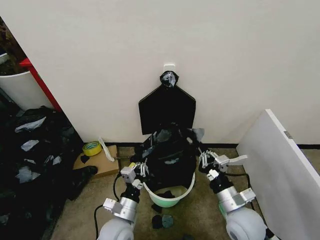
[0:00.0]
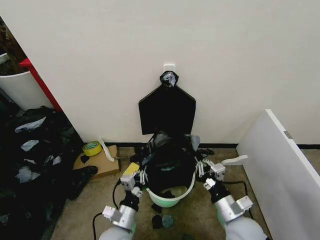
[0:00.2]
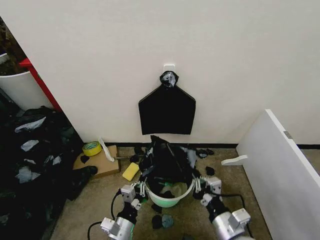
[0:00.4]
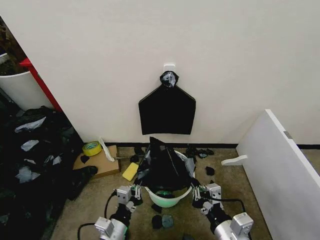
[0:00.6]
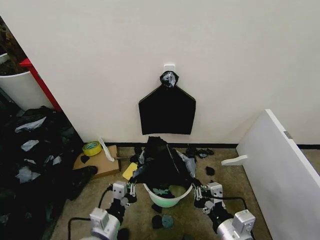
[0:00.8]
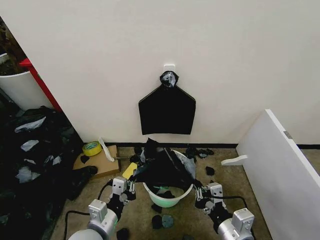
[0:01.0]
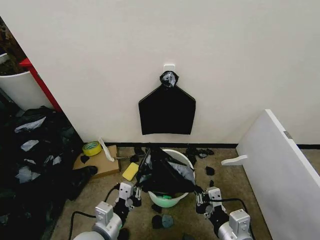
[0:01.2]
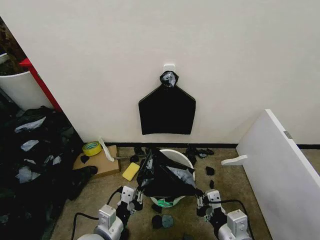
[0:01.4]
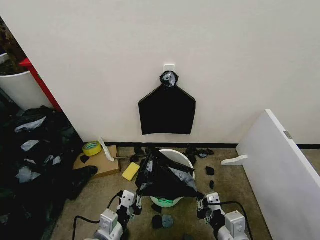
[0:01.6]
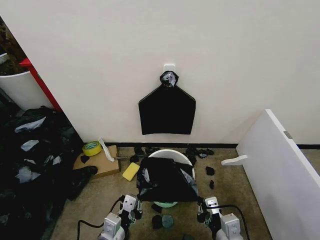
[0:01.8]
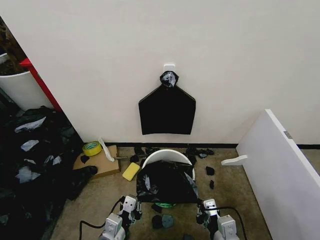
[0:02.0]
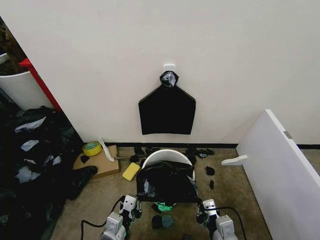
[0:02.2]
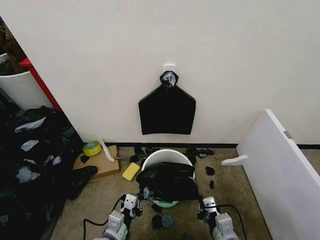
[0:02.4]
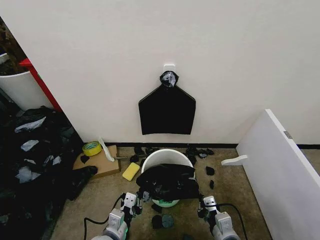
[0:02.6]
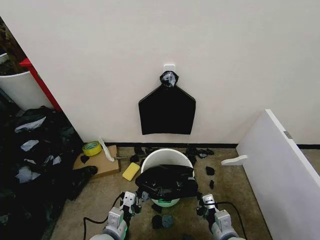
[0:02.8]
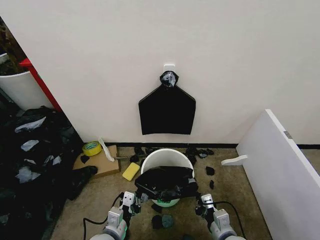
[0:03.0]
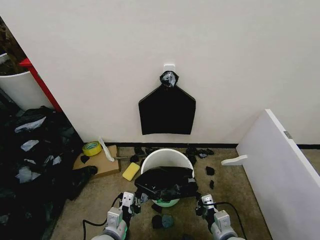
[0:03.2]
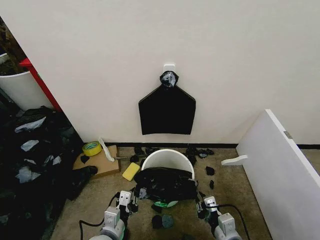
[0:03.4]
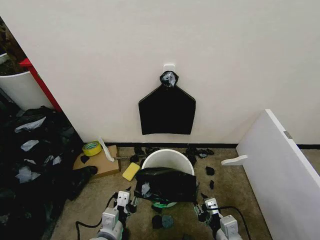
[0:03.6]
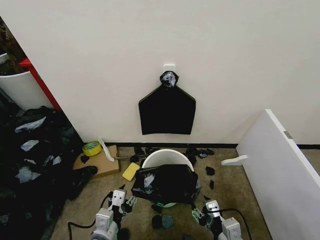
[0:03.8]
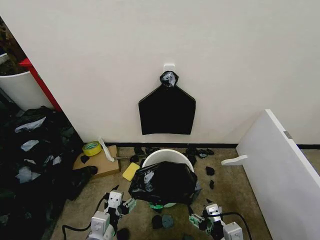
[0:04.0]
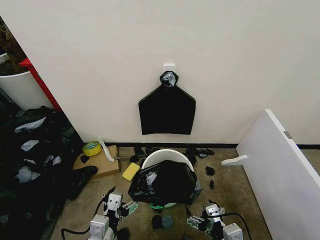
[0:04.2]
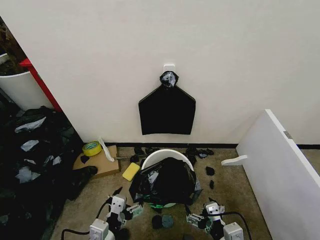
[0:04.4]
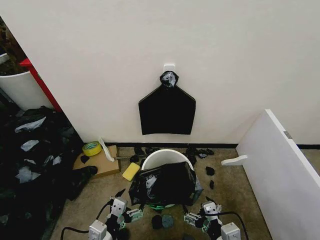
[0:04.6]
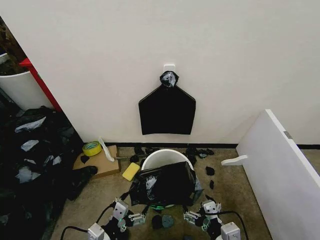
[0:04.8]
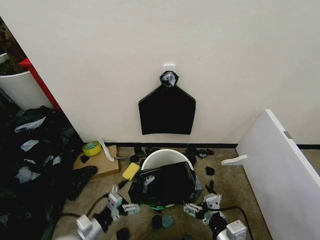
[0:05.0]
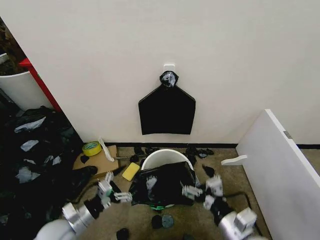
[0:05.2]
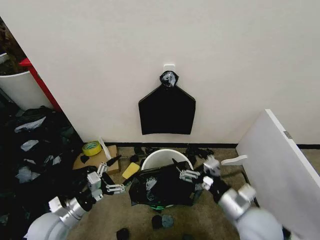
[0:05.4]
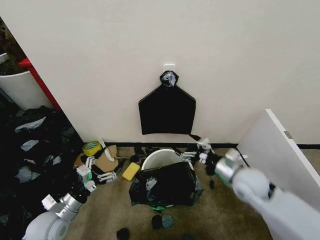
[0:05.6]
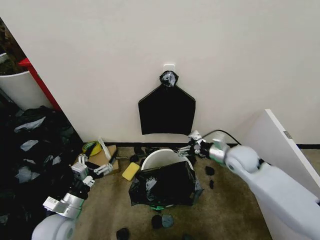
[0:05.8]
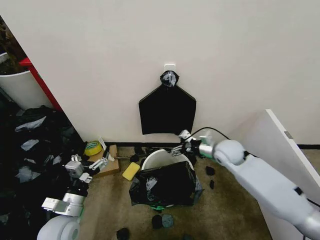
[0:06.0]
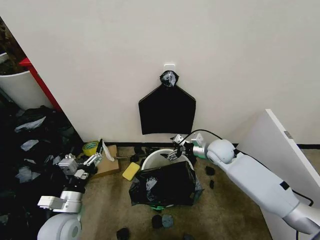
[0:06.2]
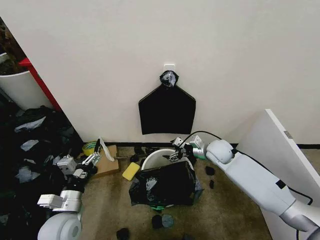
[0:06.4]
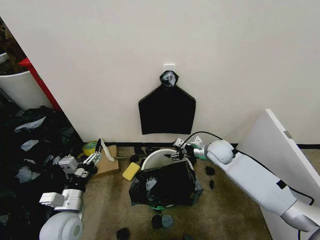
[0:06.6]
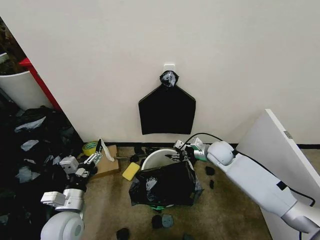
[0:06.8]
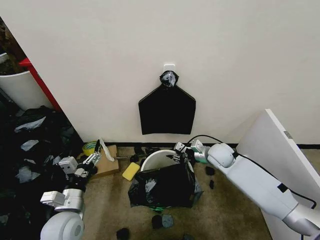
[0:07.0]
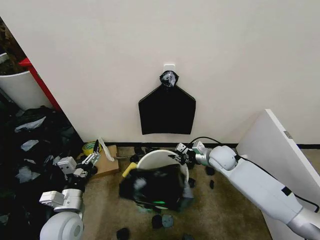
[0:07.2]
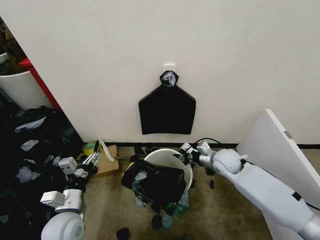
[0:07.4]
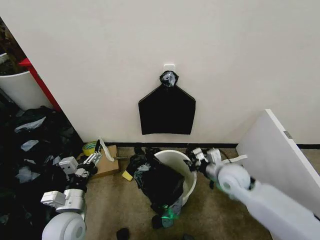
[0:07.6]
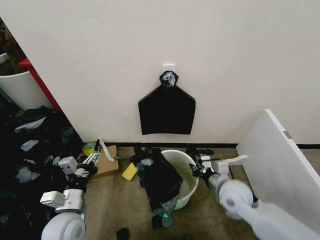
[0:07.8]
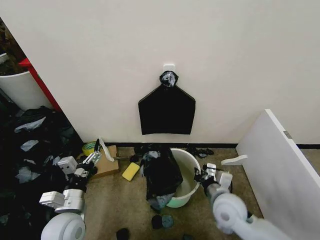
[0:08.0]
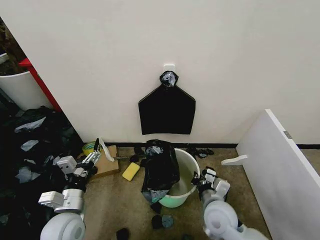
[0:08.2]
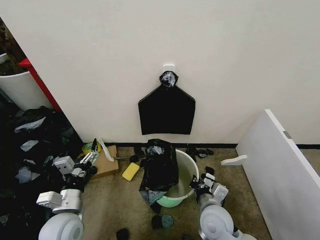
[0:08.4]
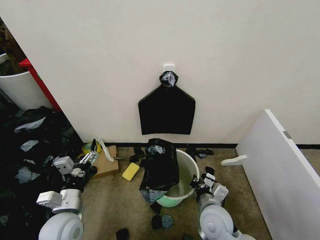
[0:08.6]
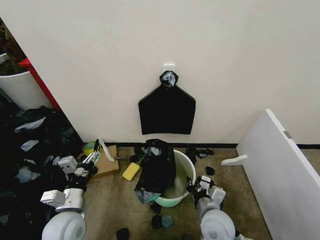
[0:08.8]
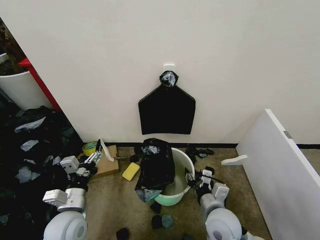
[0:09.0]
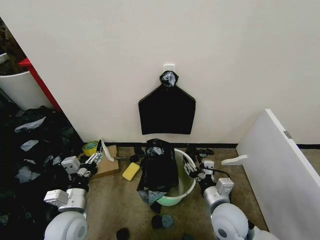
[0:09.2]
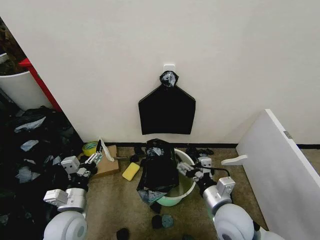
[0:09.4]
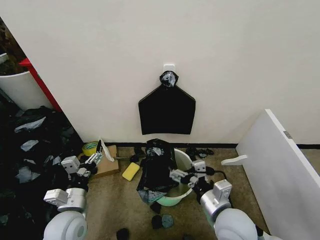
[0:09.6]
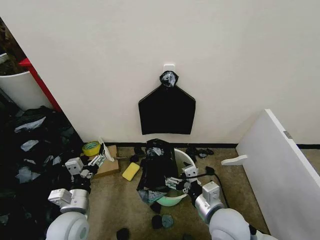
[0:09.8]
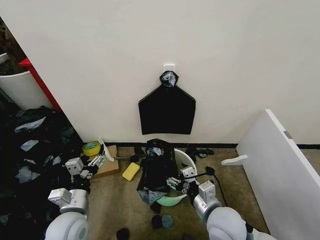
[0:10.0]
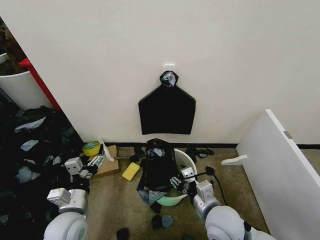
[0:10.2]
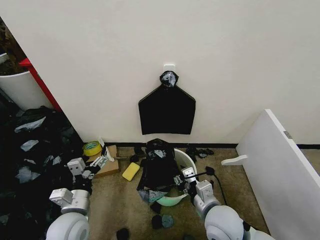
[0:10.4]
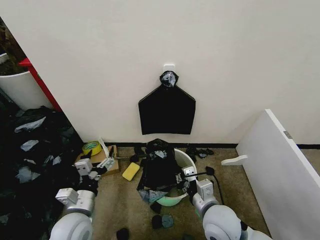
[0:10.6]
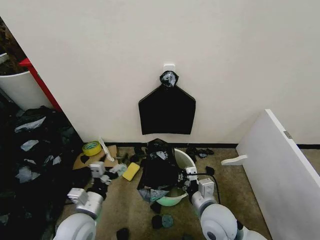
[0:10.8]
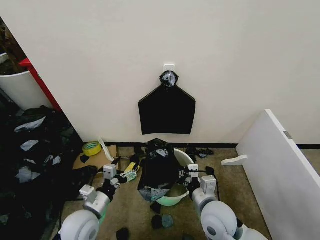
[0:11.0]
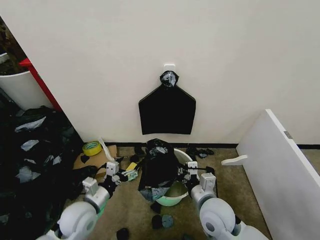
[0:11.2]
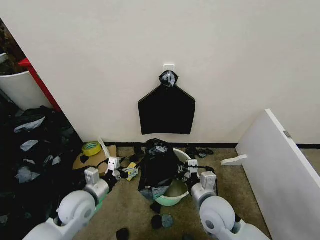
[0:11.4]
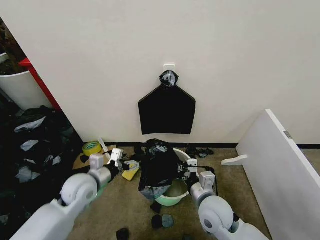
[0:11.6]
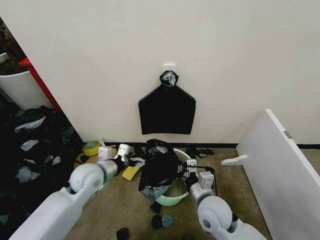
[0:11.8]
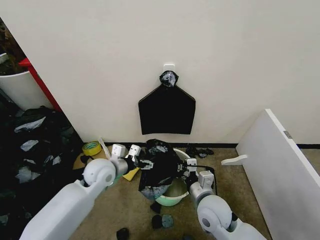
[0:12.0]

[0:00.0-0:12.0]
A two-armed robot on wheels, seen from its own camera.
Task of the whole recording: Place the garbage bag over the trash bin.
0:00.0 to 0:01.6: The left gripper goes about 10 cm backward and upward. The right gripper goes some 10 cm backward.
0:01.6 to 0:03.0: The right gripper heads downward, covering approximately 10 cm. Meanwhile the left gripper goes roughly 5 cm downward.
0:03.0 to 0:04.4: The left gripper moves upward, about 5 cm, and opens. The right gripper moves upward and backward, approximately 10 cm, and opens its fingers.
0:04.4 to 0:06.0: The left gripper is displaced to the left and forward by roughly 15 cm; the right gripper travels forward by roughly 35 cm.
0:06.0 to 0:07.6: The right gripper goes roughly 10 cm backward, and closes its fingers.
0:07.6 to 0:09.0: The right gripper is displaced backward and to the left by some 15 cm, and opens its fingers.
0:09.0 to 0:10.4: The right gripper opens, then closes once more.
0:10.4 to 0:12.0: The left gripper heads forward, covering some 15 cm. Meanwhile the right gripper closes.

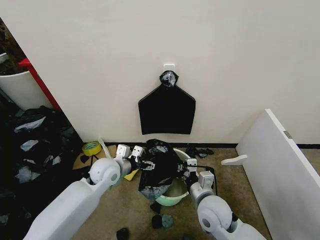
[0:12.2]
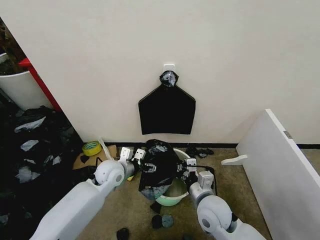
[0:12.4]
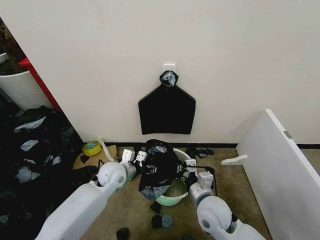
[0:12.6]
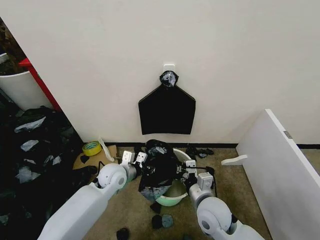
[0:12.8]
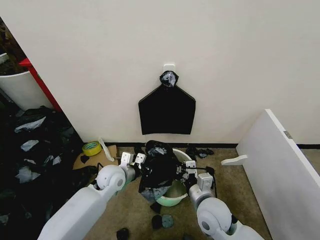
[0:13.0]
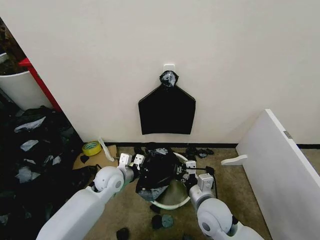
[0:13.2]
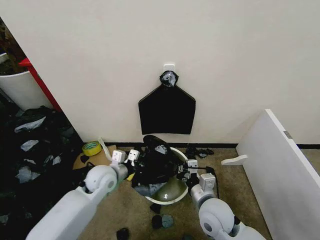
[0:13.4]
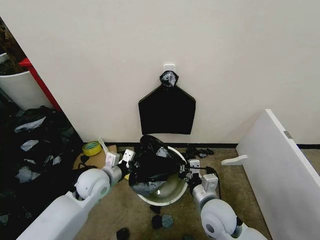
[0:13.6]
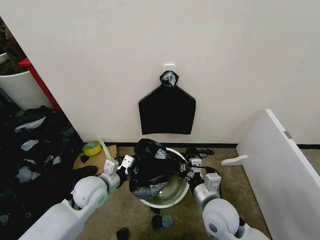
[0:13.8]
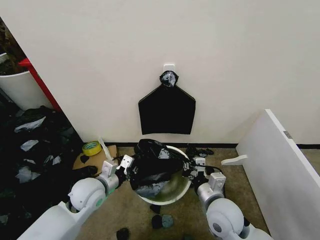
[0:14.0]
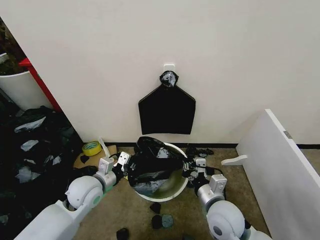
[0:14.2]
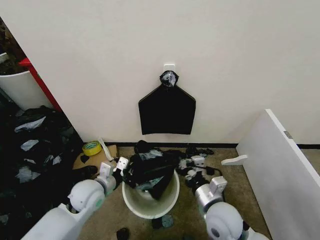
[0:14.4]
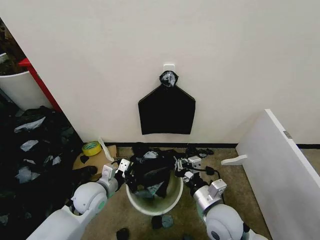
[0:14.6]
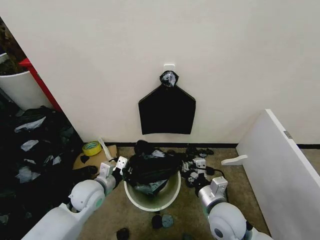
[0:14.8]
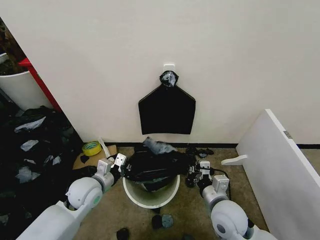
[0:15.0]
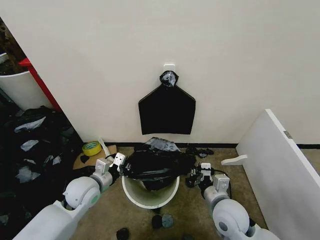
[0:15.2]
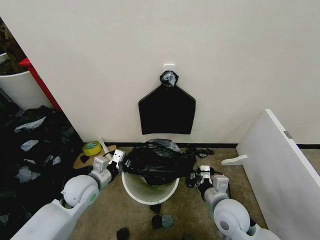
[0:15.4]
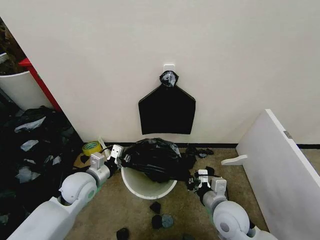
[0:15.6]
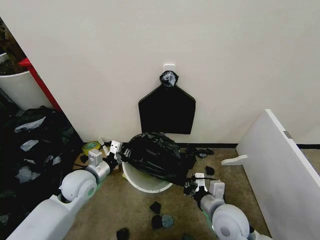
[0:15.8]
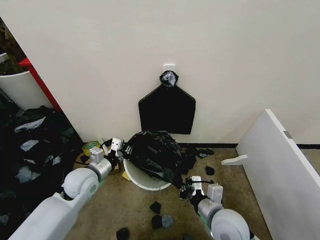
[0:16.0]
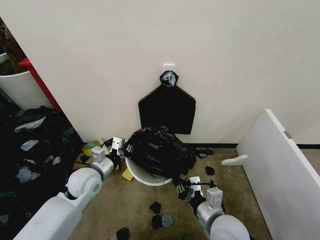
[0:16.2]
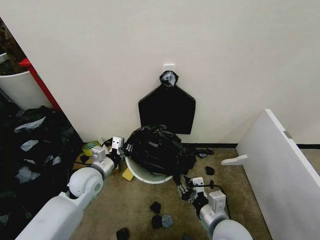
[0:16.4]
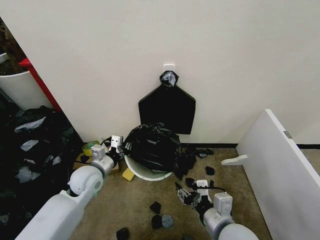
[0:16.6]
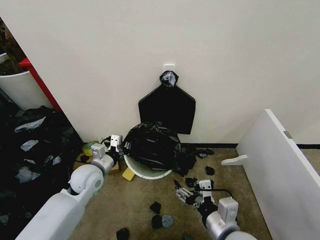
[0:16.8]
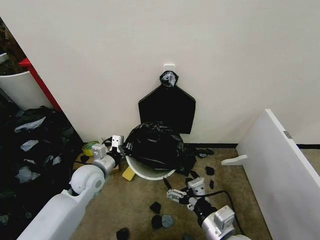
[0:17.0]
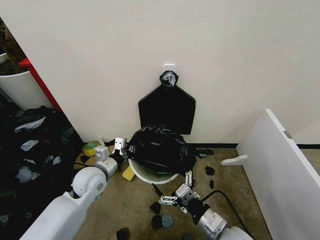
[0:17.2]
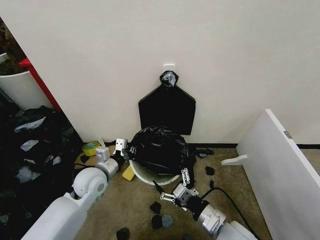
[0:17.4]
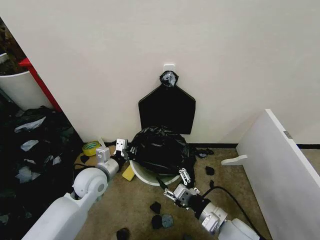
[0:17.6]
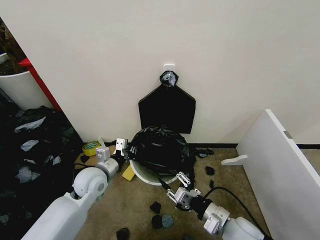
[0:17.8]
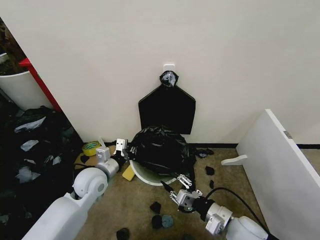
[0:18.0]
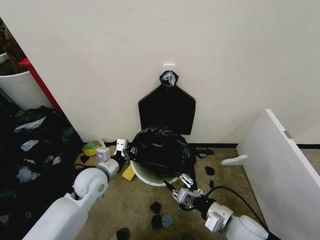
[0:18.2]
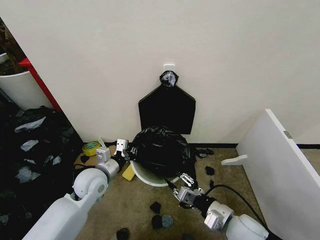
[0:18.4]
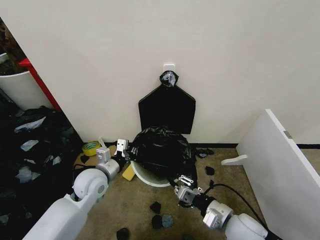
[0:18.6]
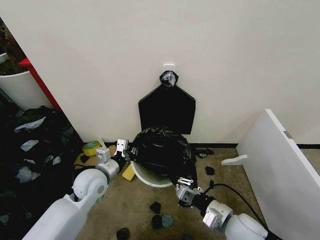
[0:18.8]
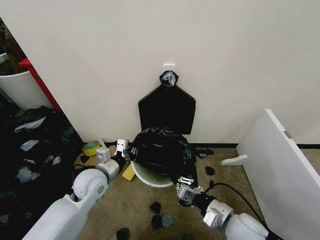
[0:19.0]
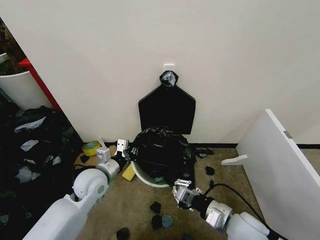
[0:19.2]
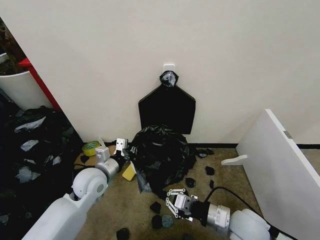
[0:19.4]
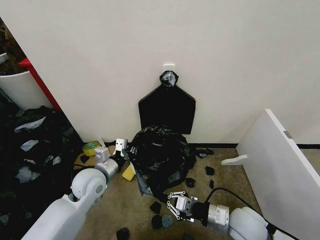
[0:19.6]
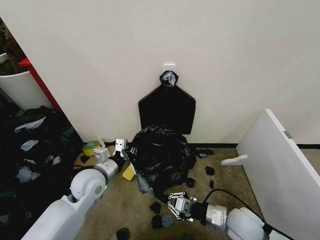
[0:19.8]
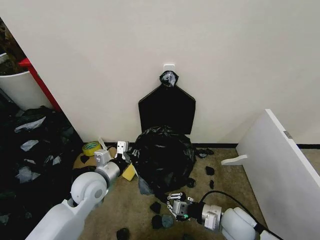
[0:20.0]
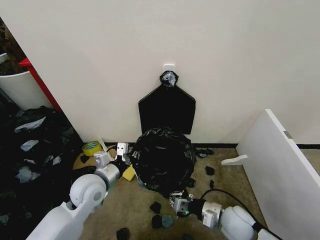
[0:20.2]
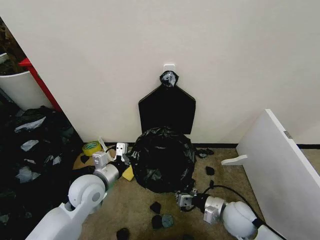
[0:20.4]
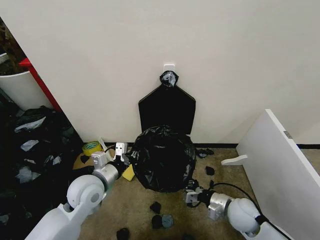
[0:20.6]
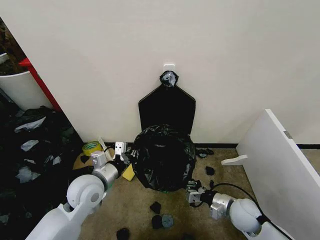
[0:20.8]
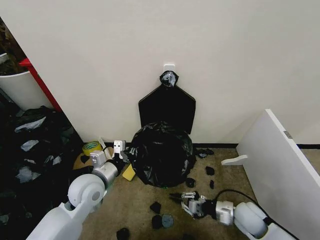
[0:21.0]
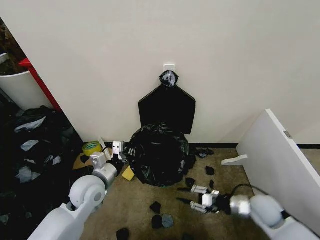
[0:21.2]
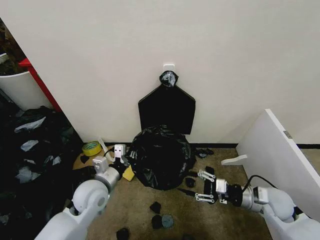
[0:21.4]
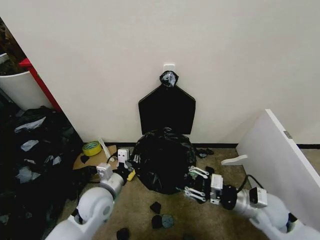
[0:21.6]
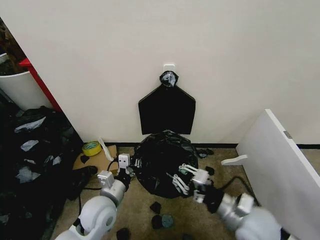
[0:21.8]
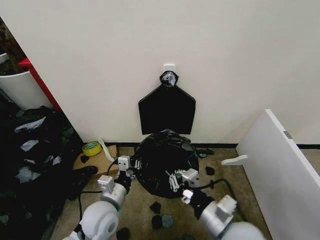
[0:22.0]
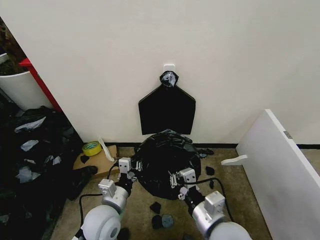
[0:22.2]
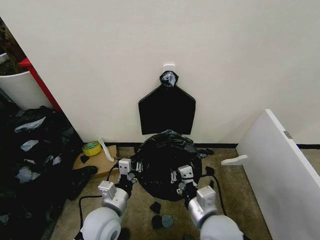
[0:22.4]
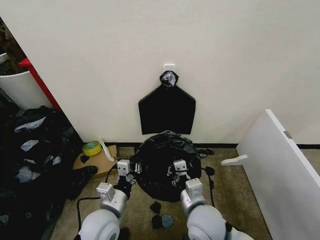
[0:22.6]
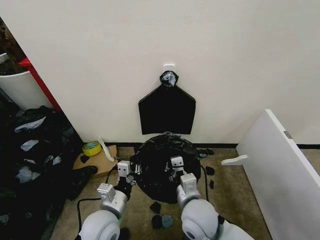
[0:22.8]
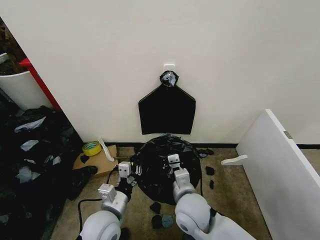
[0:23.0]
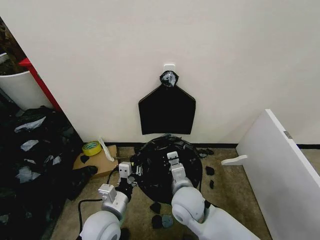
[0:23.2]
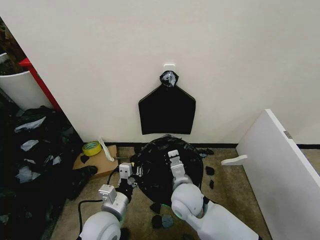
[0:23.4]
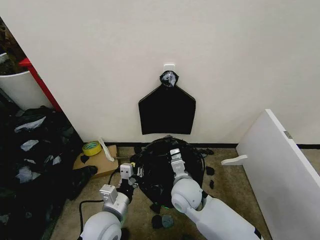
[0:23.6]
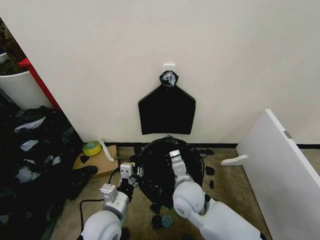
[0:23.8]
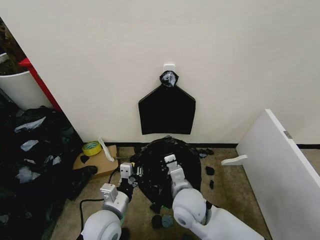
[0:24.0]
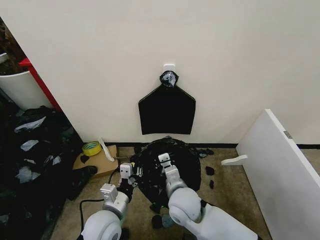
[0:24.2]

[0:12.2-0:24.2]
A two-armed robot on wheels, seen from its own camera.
Task of the whole recording: Place the garbage bag over the trash bin.
0:12.2 to 0:13.8: The left gripper travels backward by approximately 5 cm, and closes up.
0:13.8 to 0:15.2: The grippers stay close to where they were, moving slightly.
0:15.2 to 0:16.6: The right gripper travels backward and upward by about 10 cm, and opens.
0:16.6 to 0:18.2: The right gripper moves downward, some 5 cm, and opens, then closes again.
0:18.2 to 0:19.8: The right gripper closes its fingers.
0:19.8 to 0:21.2: The right gripper is displaced to the right and forward by about 10 cm.
0:21.2 to 0:22.6: The right gripper shifts roughly 25 cm to the left. The left gripper is displaced backward and to the right by some 10 cm.
0:22.6 to 0:24.2: The right gripper goes roughly 10 cm forward and to the left.
